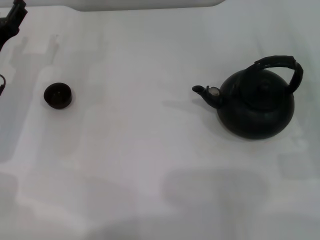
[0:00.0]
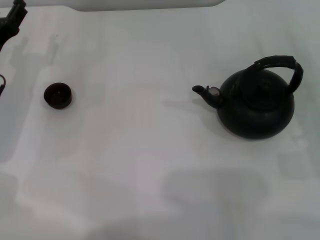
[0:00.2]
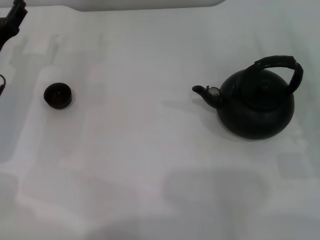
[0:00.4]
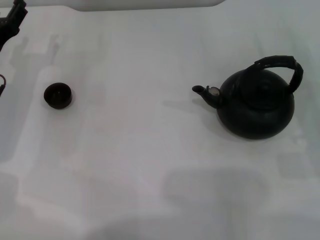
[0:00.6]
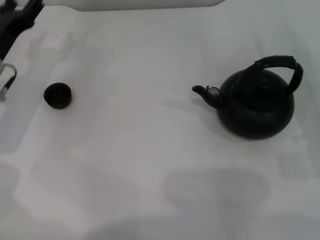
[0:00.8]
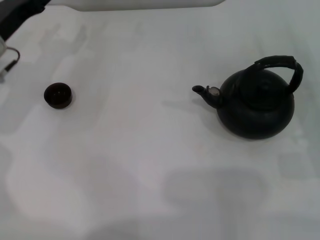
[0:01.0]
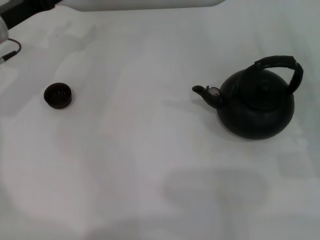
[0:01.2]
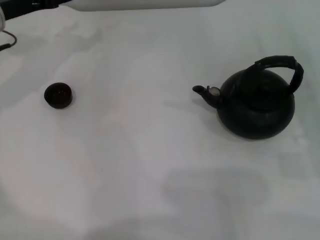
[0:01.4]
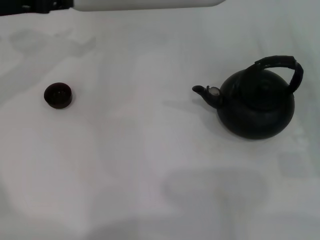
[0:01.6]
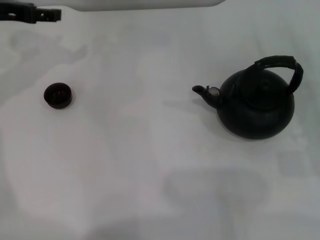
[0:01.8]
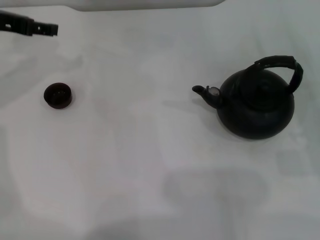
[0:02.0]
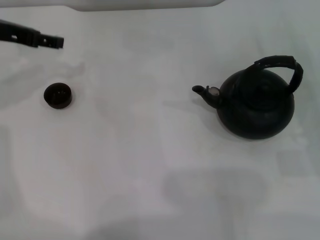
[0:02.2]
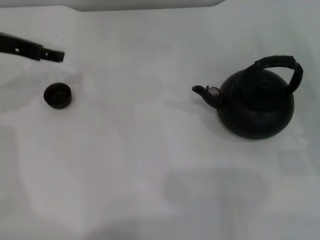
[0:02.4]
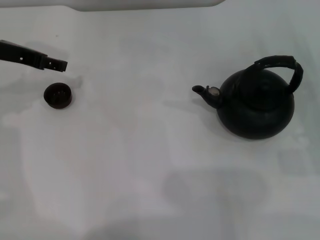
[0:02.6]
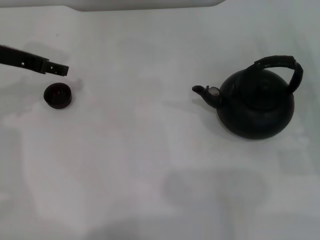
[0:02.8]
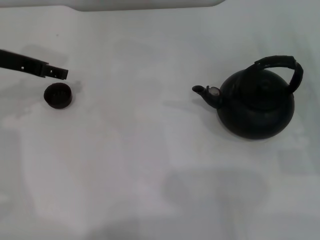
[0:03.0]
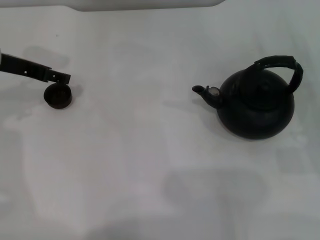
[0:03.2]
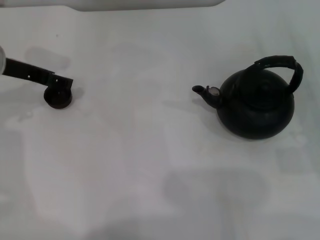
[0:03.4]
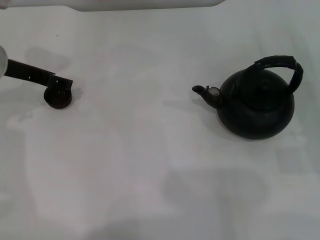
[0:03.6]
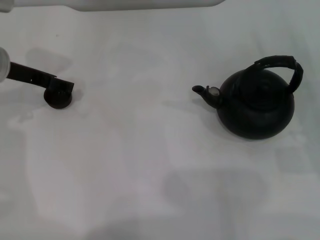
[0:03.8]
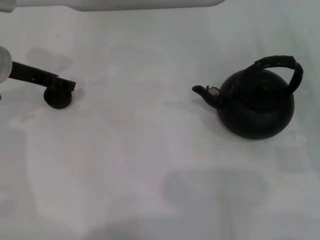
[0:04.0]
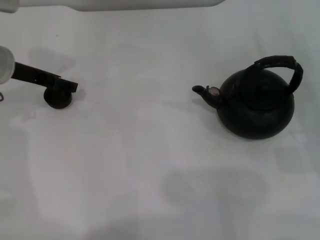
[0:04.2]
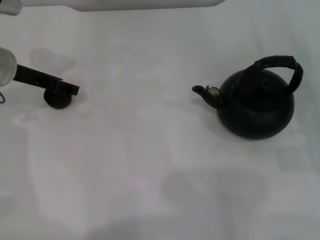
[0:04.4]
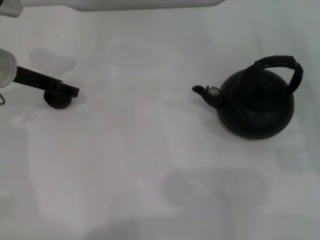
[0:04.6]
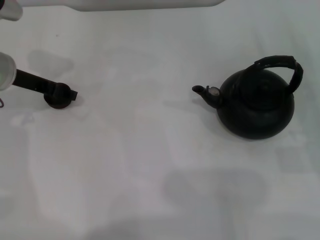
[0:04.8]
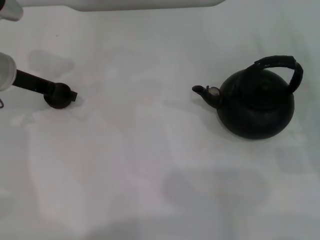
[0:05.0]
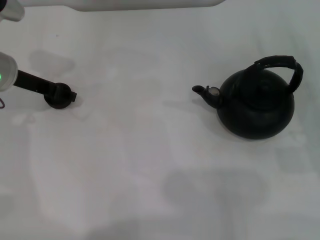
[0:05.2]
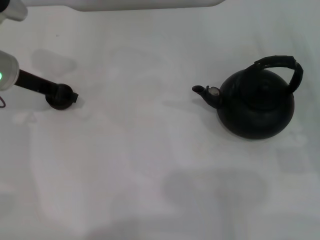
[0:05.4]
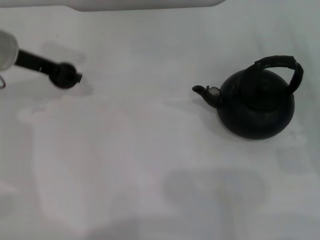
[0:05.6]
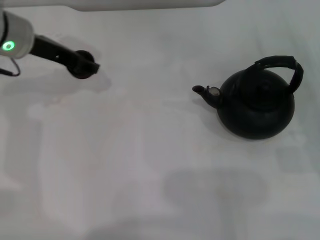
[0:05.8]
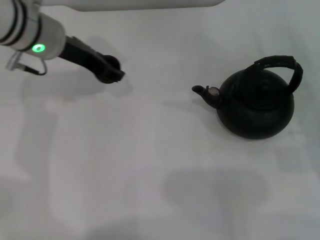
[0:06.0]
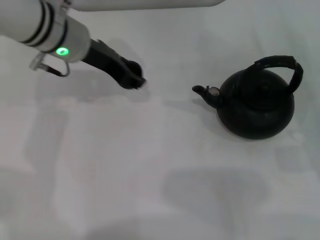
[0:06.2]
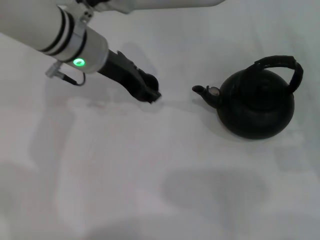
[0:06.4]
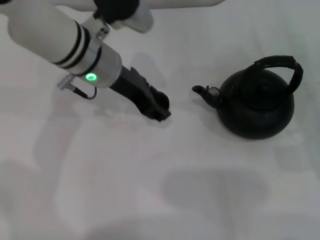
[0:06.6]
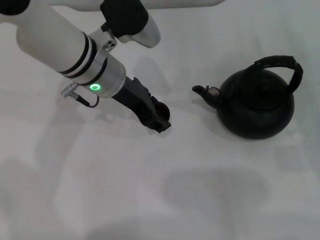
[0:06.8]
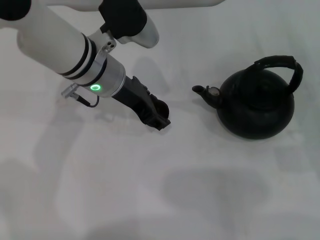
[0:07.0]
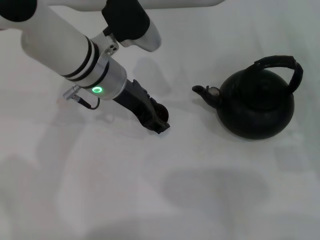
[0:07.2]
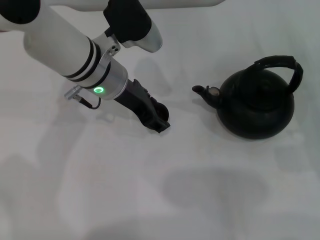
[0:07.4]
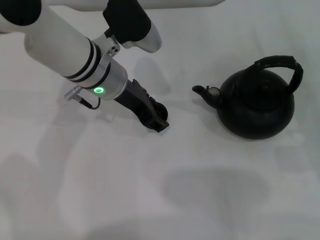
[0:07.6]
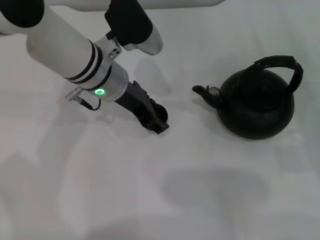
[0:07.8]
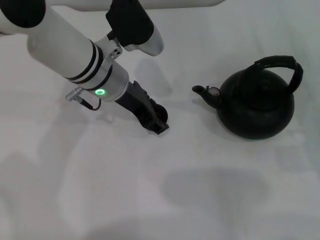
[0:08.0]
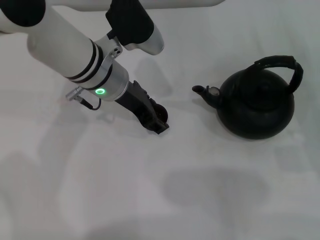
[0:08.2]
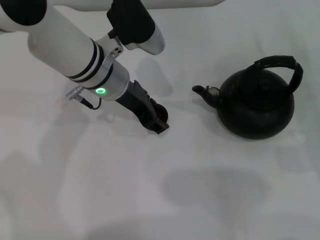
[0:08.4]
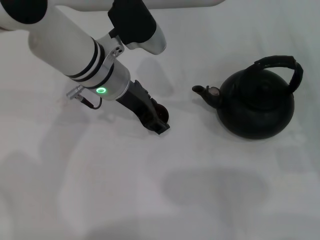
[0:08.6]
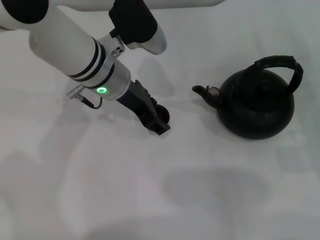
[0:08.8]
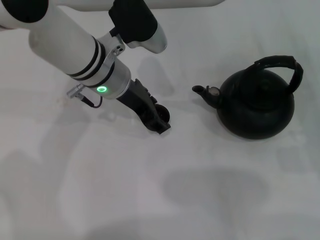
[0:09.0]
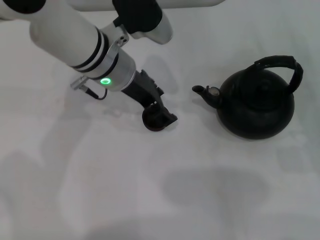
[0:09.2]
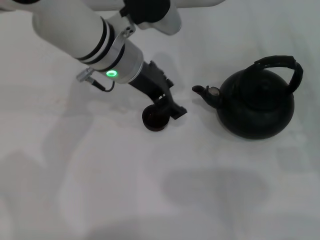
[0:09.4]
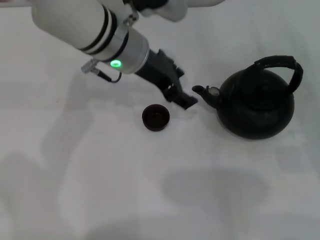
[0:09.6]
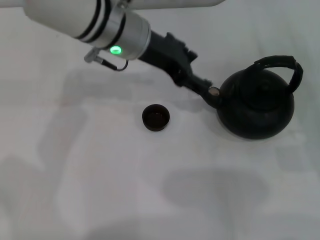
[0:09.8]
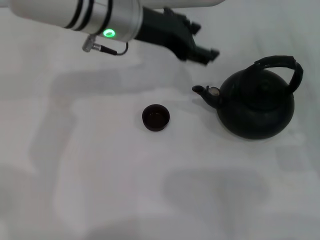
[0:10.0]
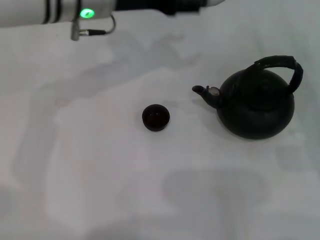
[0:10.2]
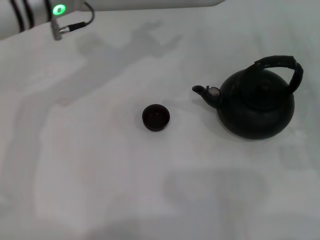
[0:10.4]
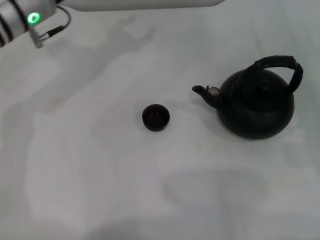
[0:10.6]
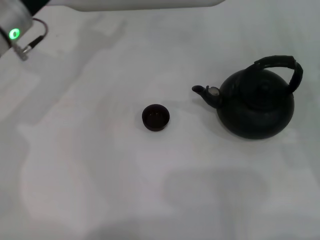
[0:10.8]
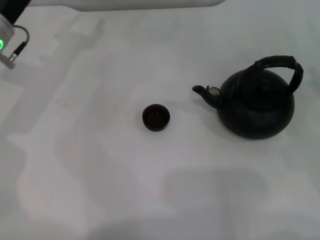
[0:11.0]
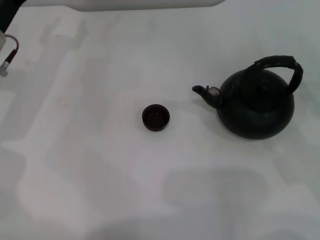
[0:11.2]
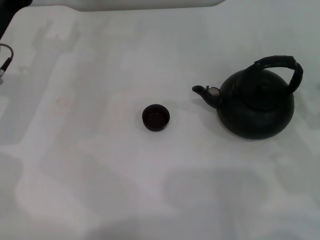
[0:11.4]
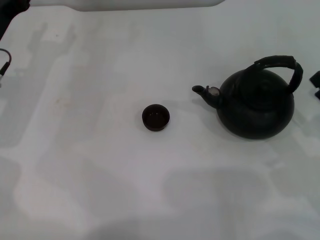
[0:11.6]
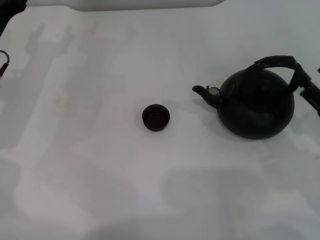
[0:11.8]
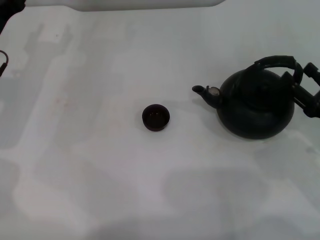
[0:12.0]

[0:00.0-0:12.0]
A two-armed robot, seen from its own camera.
Task of the whole recording: Grasp the handle of the teapot with one hand and pour tea into the teacup.
Step, 0:00.0 to 0:05.4: Pick up the teacup with the left gripper.
Step, 0:05.8 to 0:09.4: Place the teacup in the center of view with the left gripper.
0:00.0 to 0:01.6: The left gripper goes about 15 cm upward and forward.
0:01.6 to 0:03.0: The left gripper opens.
0:03.0 to 0:04.4: The grippers move only a little.
0:04.4 to 0:06.0: The left gripper moves to the right, roughly 10 cm, and closes.
0:06.0 to 0:07.6: The left gripper shifts about 5 cm to the right.
0:07.6 to 0:09.0: The left gripper opens its fingers.
0:09.0 to 0:10.4: The left gripper heads to the left and upward, covering roughly 10 cm.
0:10.4 to 0:12.0: The left gripper shifts about 15 cm to the left and downward.

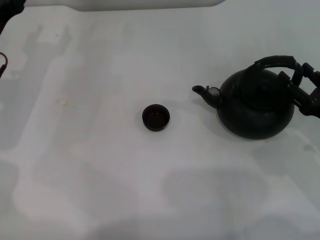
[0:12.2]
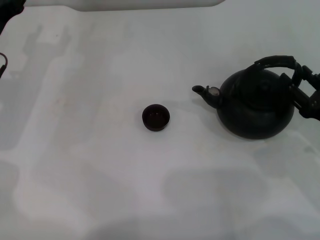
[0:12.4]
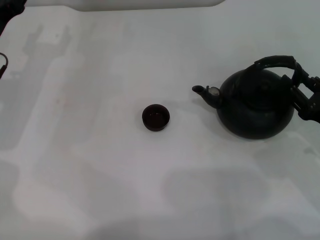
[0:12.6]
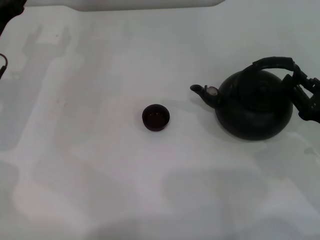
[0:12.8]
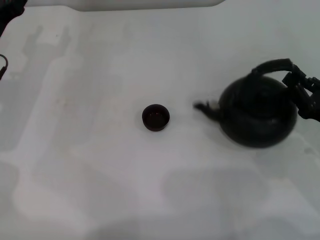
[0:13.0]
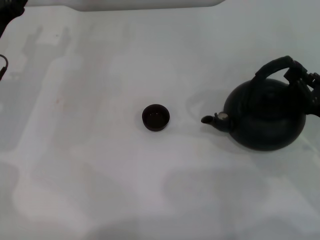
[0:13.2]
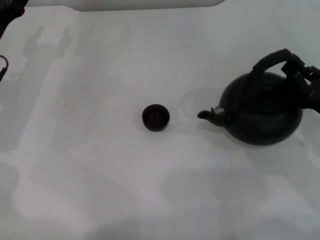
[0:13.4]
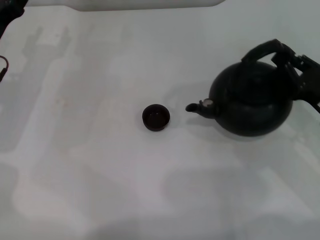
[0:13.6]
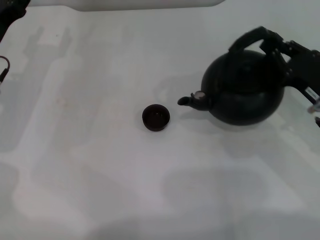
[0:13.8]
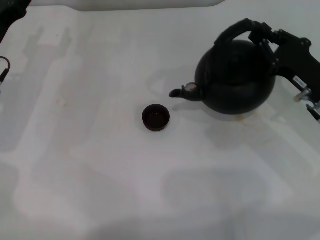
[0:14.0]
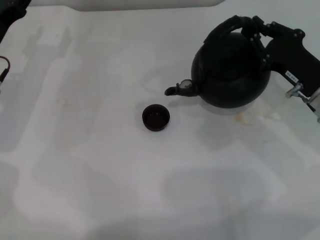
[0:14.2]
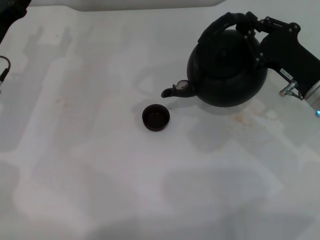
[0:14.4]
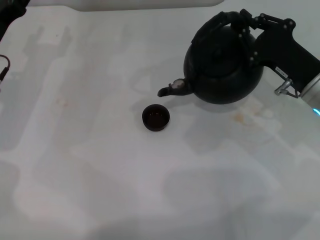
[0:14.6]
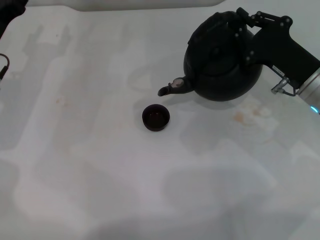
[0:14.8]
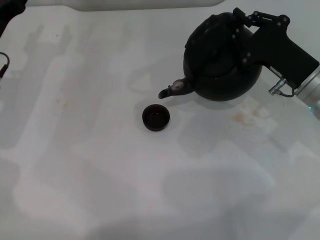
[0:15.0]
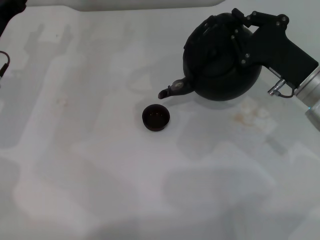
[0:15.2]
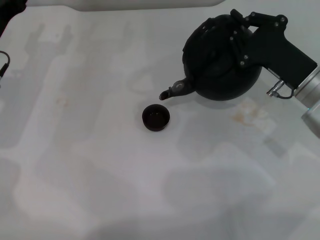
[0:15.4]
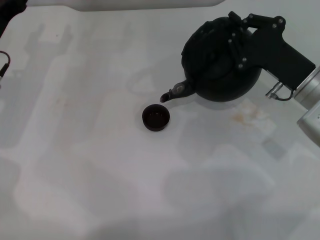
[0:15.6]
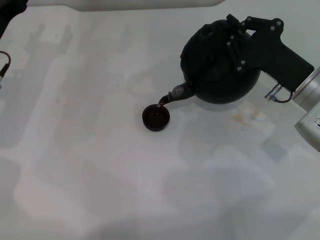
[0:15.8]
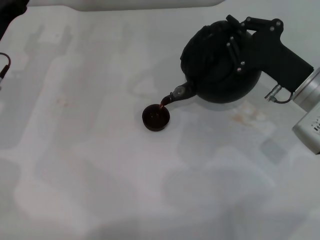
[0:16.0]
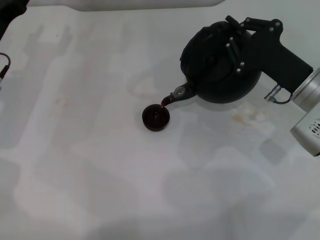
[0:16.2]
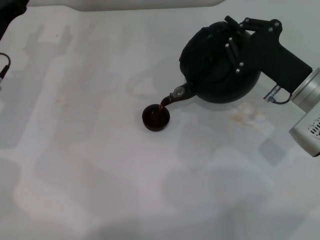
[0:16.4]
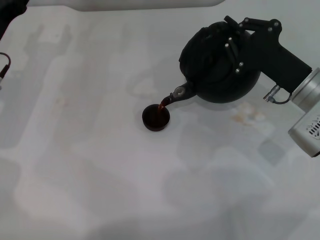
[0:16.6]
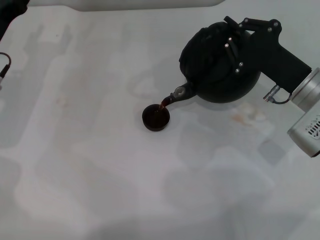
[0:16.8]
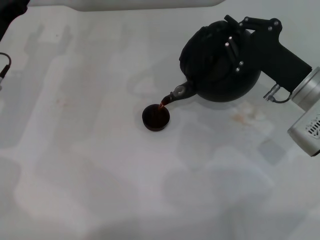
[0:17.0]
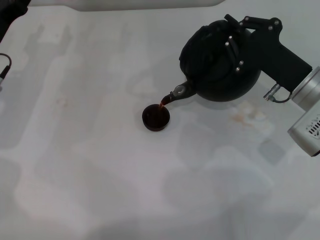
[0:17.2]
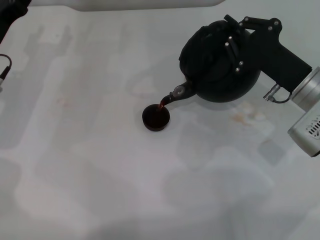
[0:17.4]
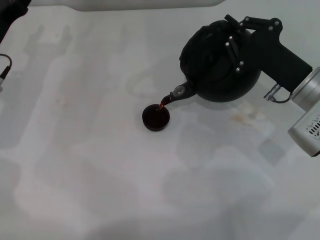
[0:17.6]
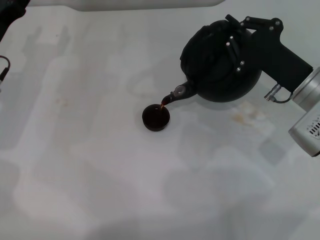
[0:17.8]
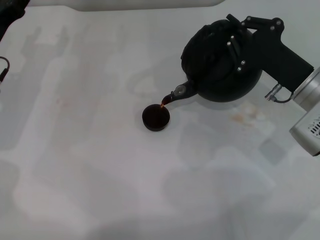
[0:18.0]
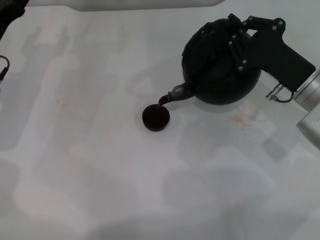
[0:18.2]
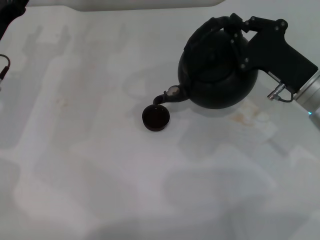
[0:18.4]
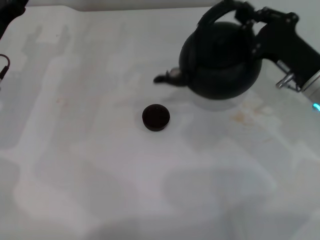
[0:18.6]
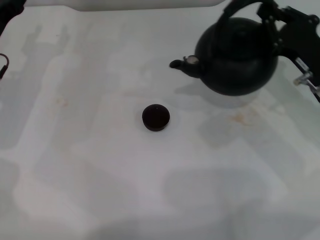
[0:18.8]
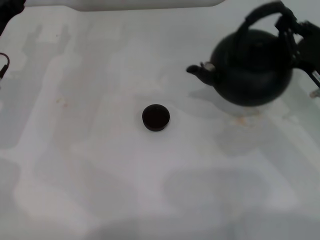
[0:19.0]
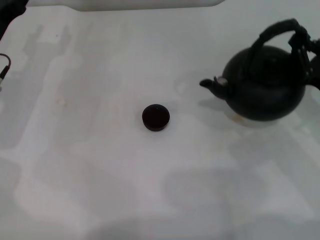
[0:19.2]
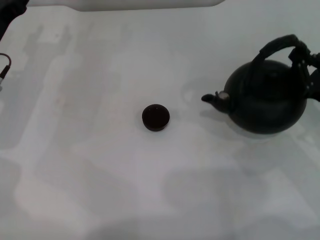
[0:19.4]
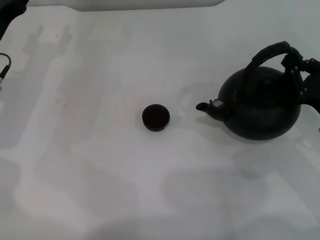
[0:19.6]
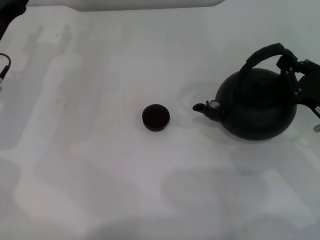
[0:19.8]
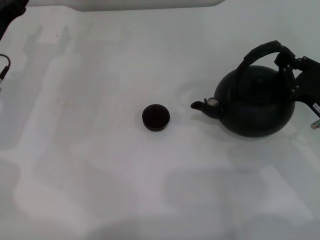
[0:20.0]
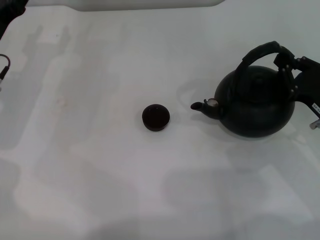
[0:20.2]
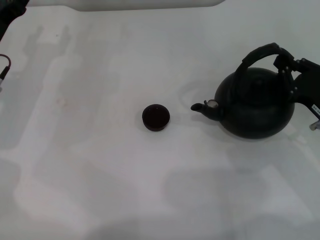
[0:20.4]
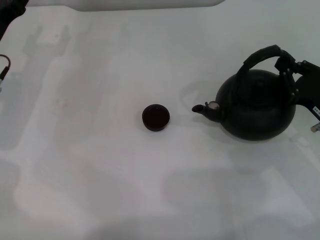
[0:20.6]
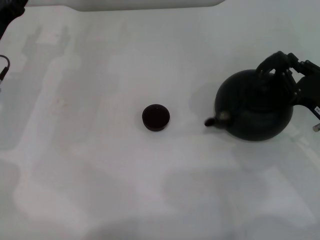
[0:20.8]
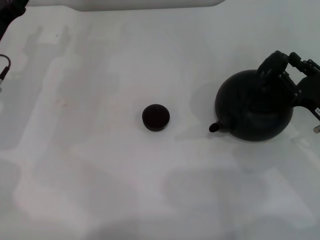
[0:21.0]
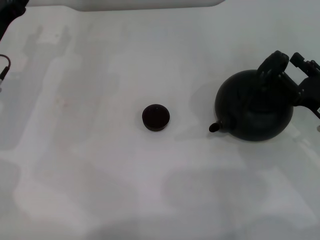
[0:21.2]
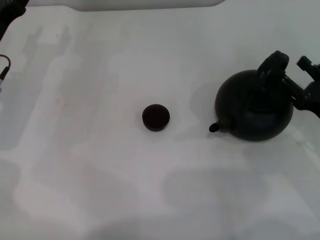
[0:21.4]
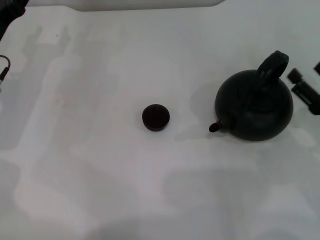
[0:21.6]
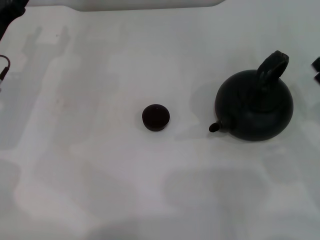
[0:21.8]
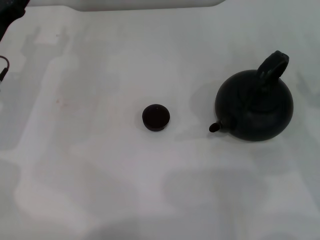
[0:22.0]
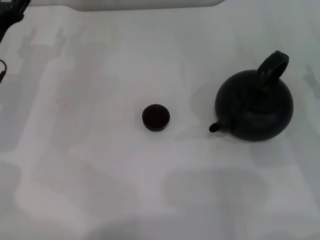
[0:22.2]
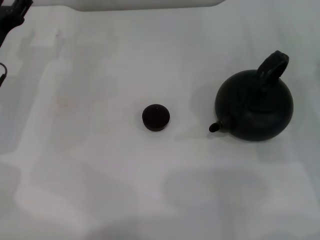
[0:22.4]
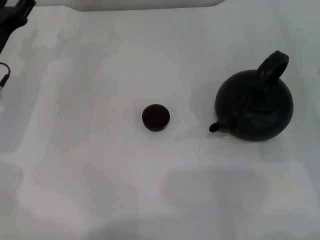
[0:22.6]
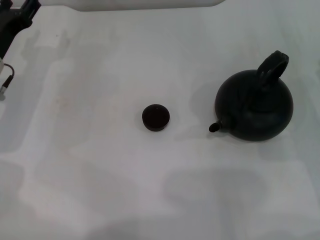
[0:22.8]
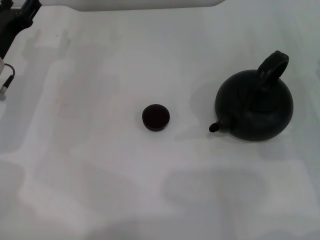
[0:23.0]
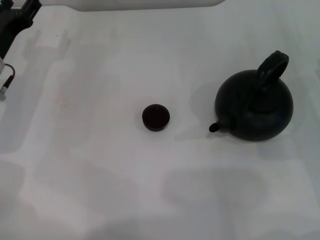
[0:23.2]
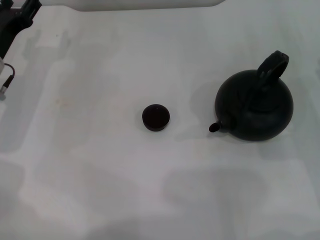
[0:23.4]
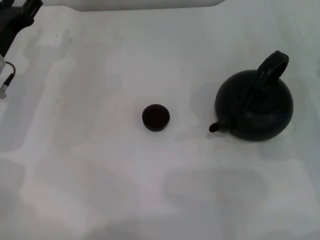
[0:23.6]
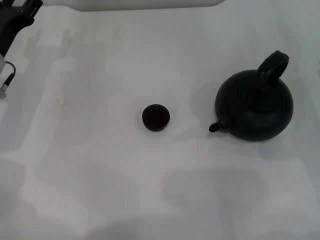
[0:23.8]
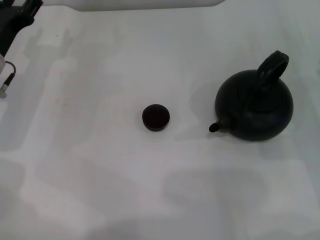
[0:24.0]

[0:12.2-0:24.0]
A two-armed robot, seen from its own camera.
Task of the whole recording: Grasp the handle of the teapot with one hand and pour tea into the teacup.
Step, 0:13.8 to 0:18.4: Pour tea into the teacup with the right gripper.
Step, 0:18.6 to 0:21.4: Put down the teapot with the right gripper.
0:12.2 to 0:13.6: The right gripper closes.
0:13.6 to 0:15.2: The right gripper heads forward and to the left, covering roughly 10 cm.
0:15.2 to 0:18.2: The grippers move only a little.
0:18.2 to 0:19.6: The right gripper travels to the right and backward by roughly 10 cm.
0:19.6 to 0:21.0: Neither gripper changes place.
0:21.0 to 0:22.6: The right gripper moves some 5 cm, and opens.
0:22.6 to 0:24.0: Both grippers stay put.
